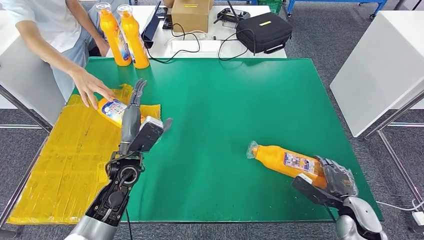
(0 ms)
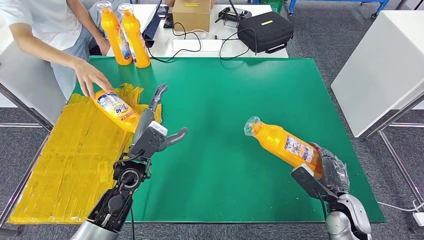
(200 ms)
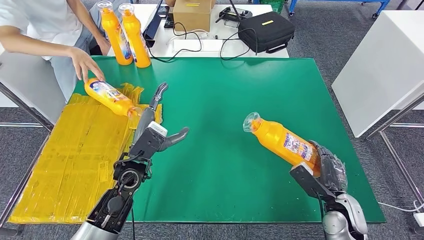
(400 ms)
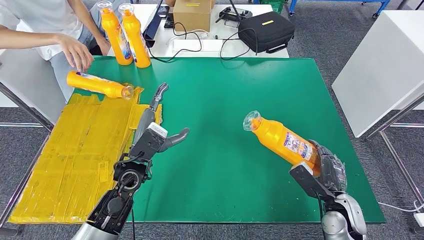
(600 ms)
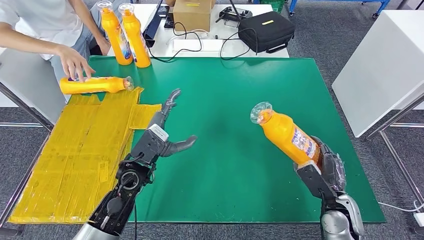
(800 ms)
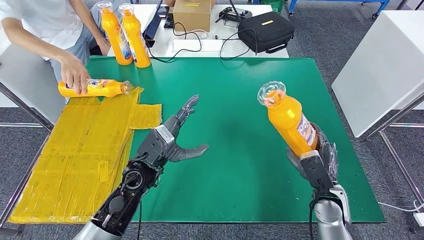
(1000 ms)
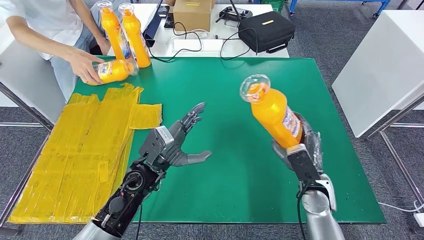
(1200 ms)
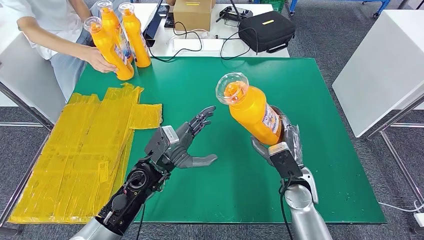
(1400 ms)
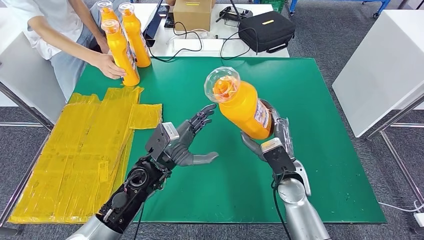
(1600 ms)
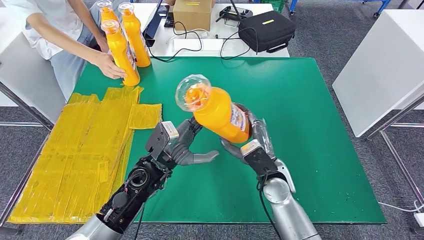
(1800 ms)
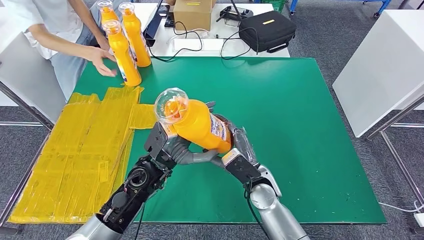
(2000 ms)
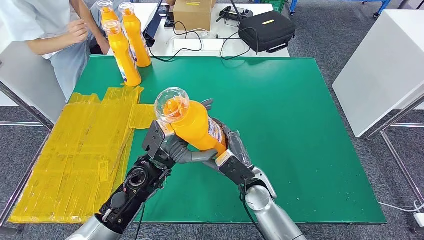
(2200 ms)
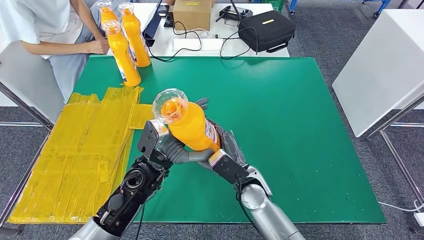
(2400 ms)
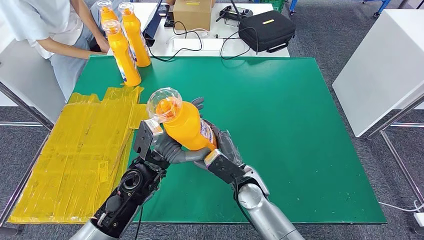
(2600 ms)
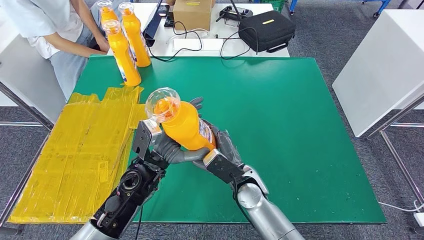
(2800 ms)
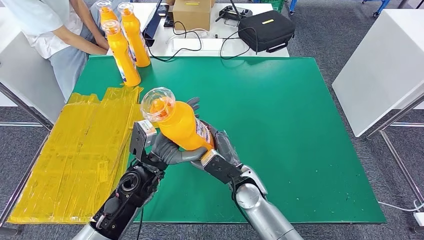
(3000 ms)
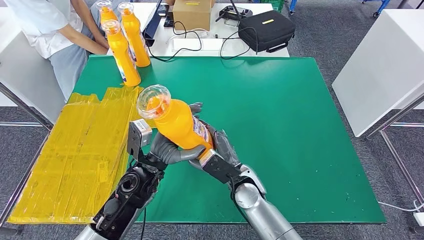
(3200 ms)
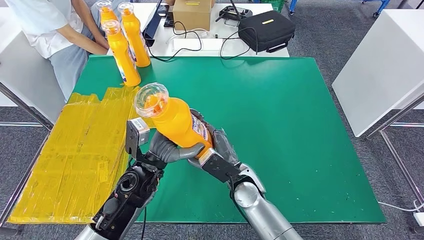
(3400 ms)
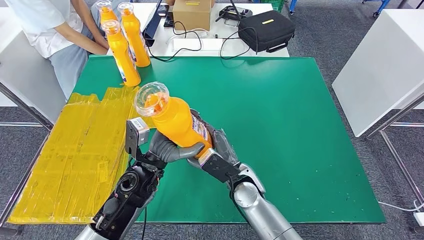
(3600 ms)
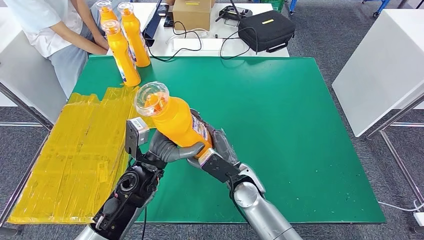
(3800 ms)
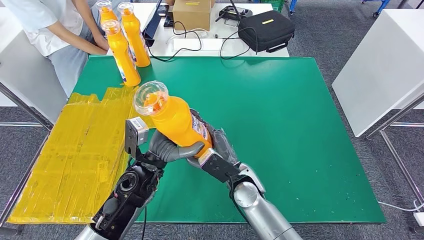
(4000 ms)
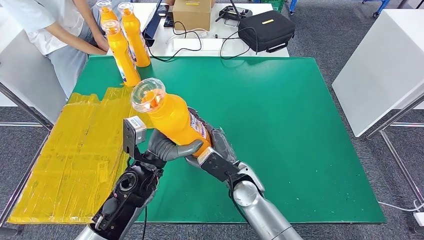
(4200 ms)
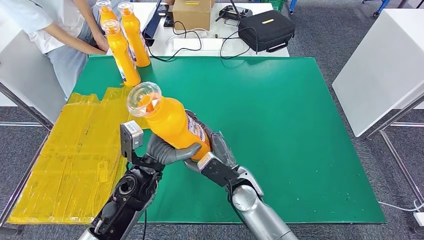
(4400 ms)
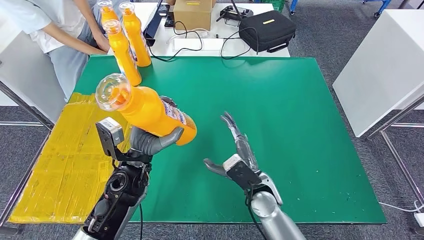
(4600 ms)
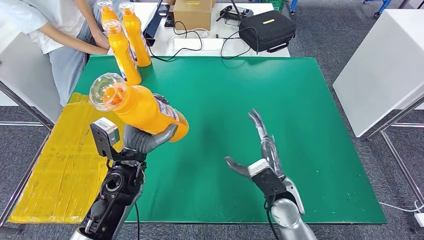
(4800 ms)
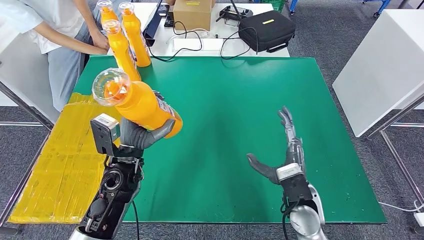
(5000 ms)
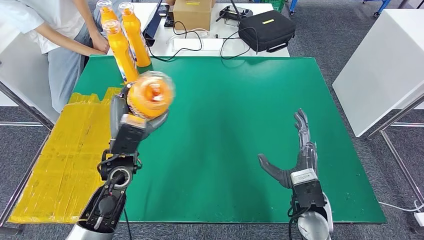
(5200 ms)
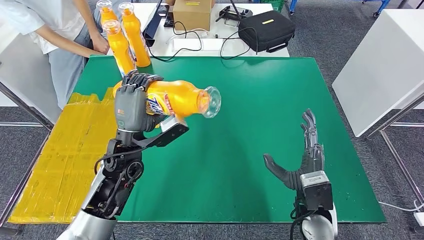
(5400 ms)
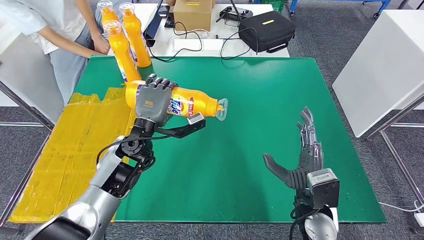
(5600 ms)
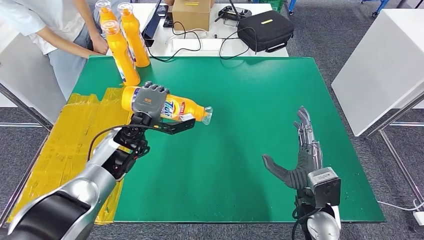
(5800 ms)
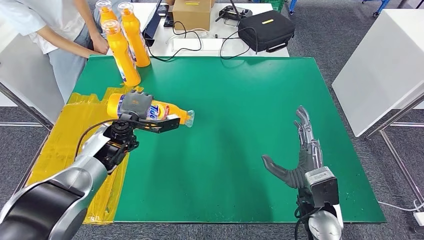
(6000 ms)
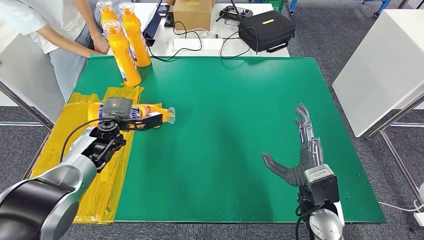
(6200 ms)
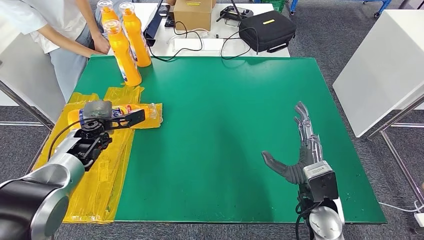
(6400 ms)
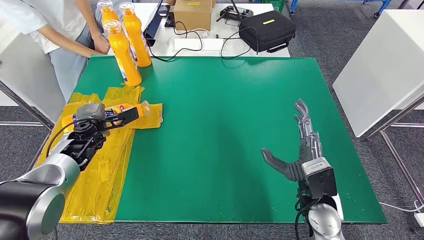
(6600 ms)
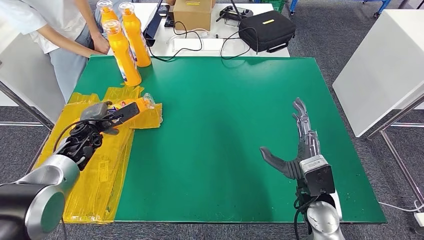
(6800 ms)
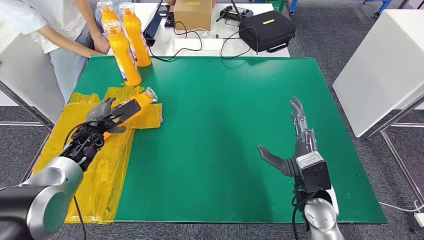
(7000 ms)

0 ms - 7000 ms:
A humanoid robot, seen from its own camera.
Step, 1400 ms - 6800 ms: Flip the bottle to face forward.
1400 ms - 2800 ms: The right hand heads to the left, covering approximately 15 cm.
2800 ms - 4200 ms: There are only small adjustments of the hands.
5600 ms - 7000 ms: The left hand heads to the left, covering roughly 20 cm.

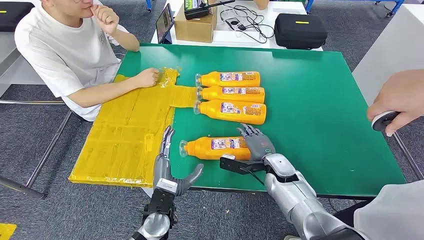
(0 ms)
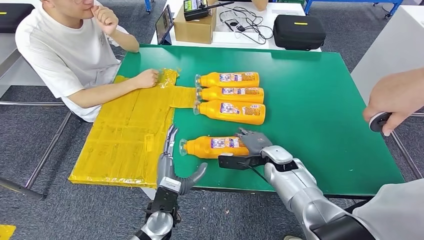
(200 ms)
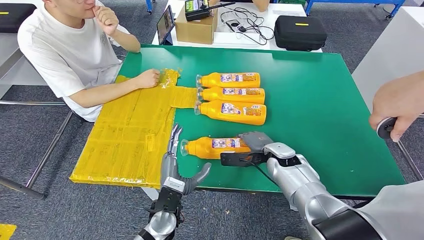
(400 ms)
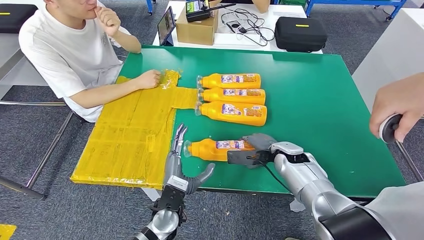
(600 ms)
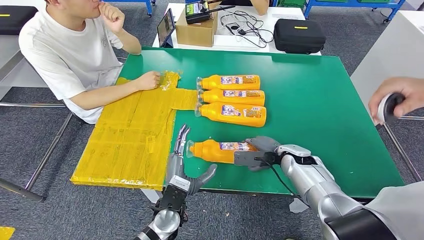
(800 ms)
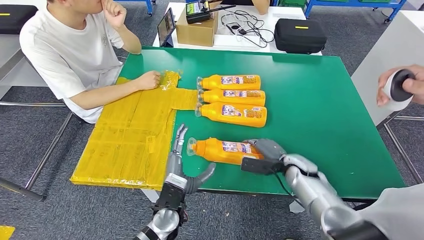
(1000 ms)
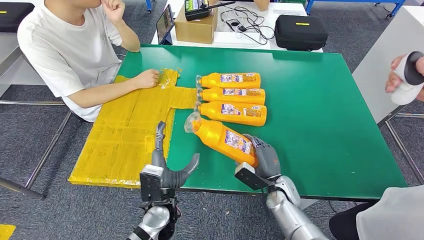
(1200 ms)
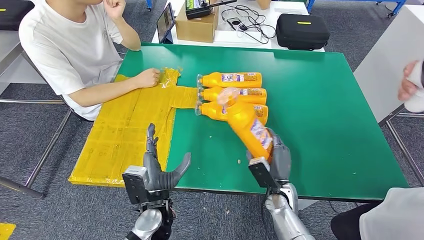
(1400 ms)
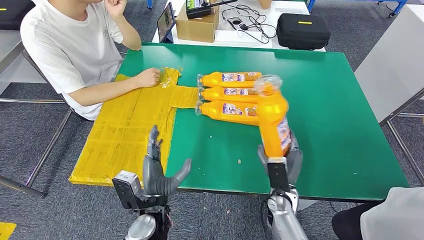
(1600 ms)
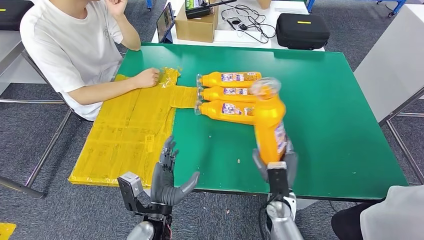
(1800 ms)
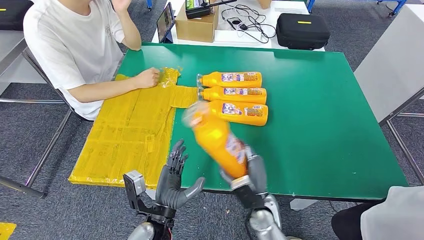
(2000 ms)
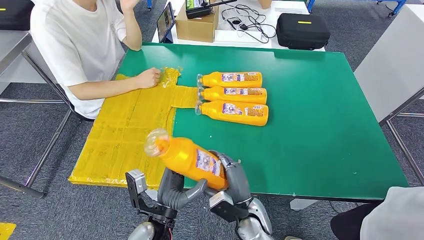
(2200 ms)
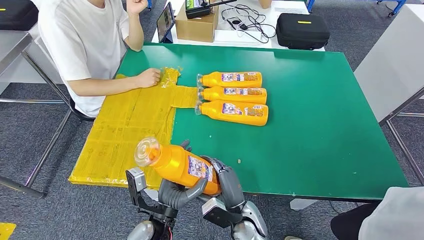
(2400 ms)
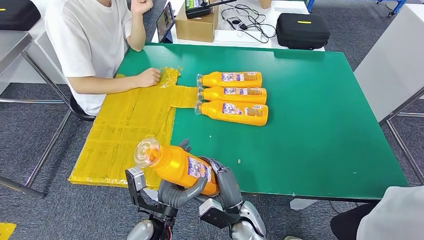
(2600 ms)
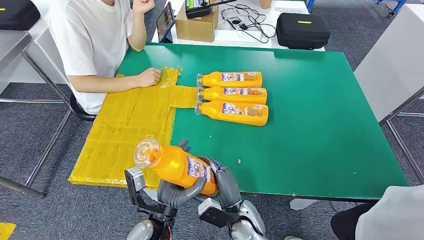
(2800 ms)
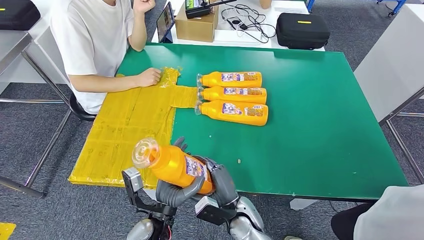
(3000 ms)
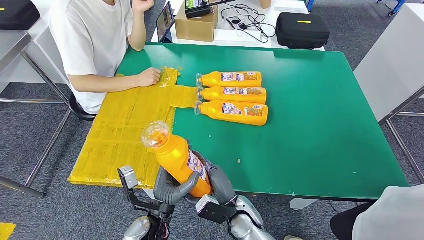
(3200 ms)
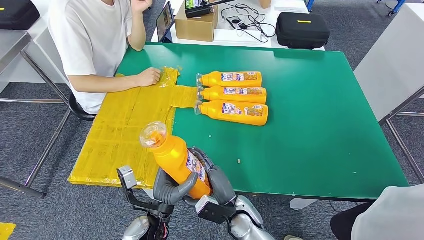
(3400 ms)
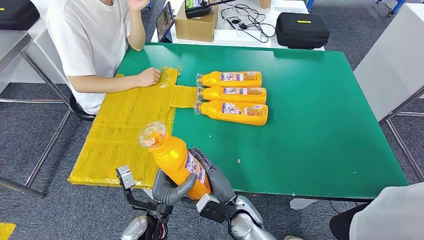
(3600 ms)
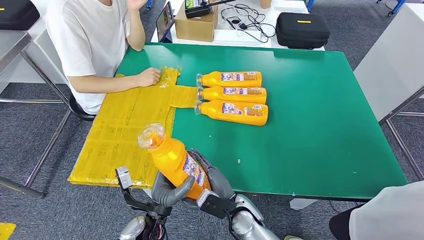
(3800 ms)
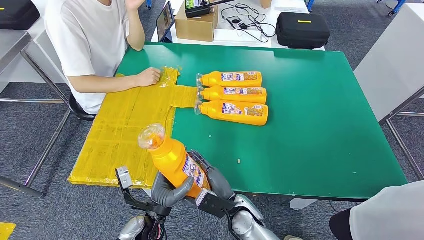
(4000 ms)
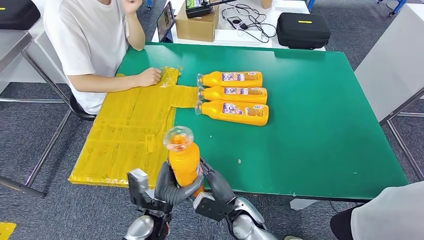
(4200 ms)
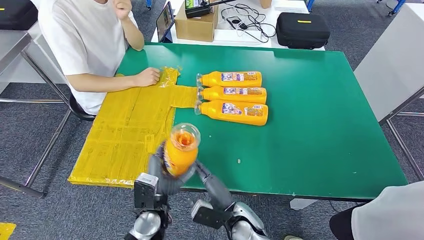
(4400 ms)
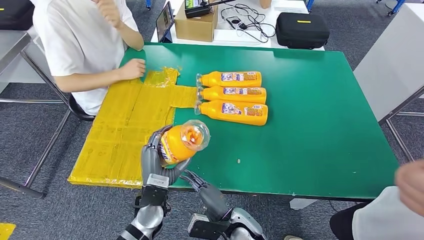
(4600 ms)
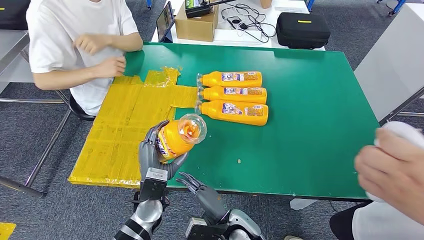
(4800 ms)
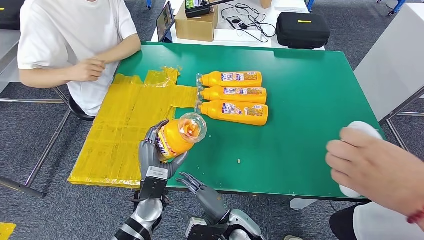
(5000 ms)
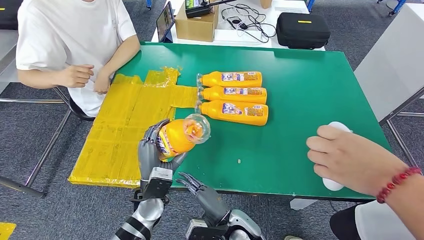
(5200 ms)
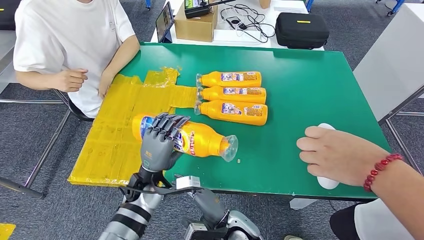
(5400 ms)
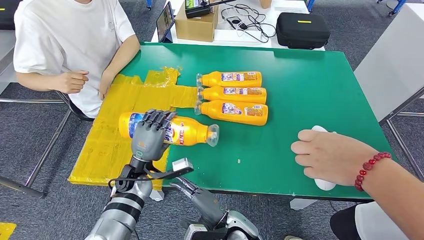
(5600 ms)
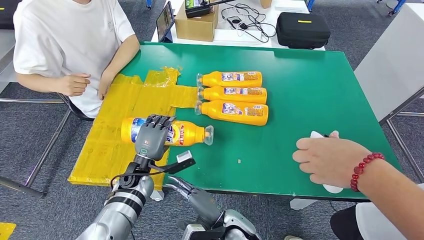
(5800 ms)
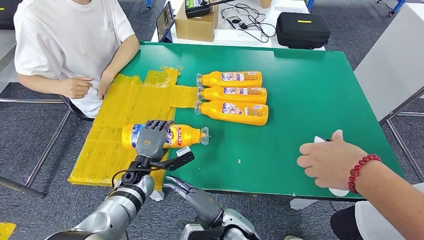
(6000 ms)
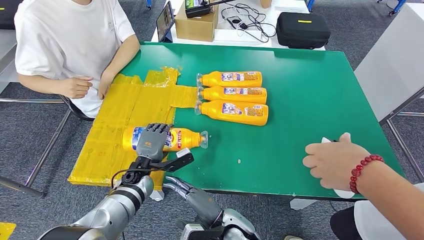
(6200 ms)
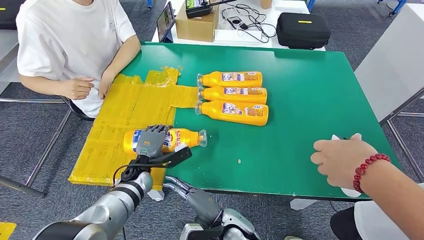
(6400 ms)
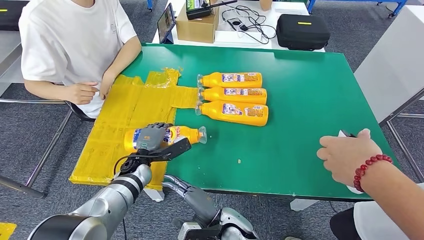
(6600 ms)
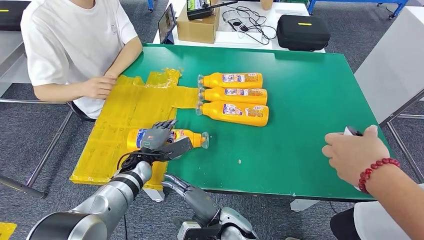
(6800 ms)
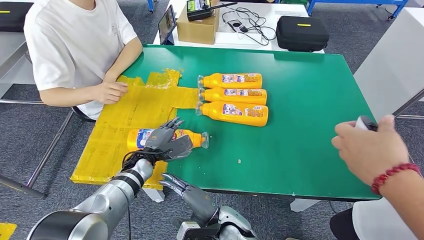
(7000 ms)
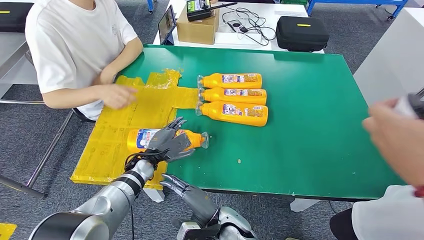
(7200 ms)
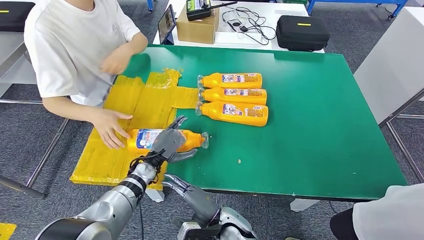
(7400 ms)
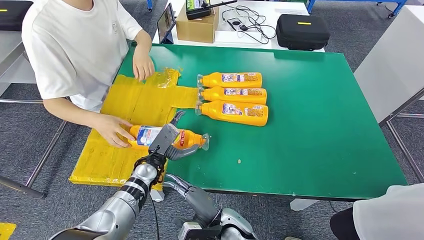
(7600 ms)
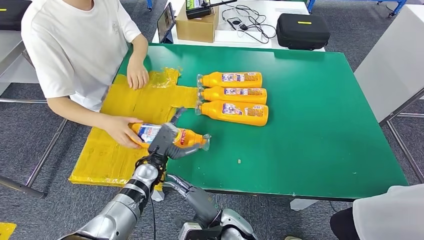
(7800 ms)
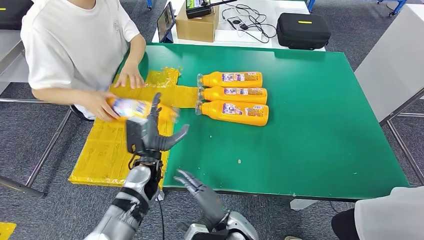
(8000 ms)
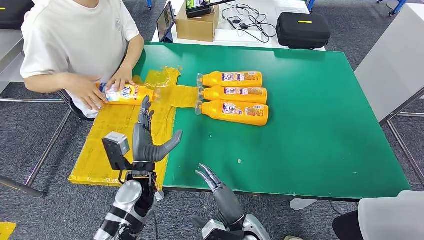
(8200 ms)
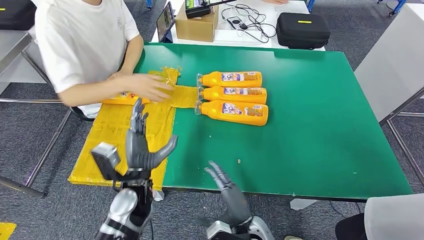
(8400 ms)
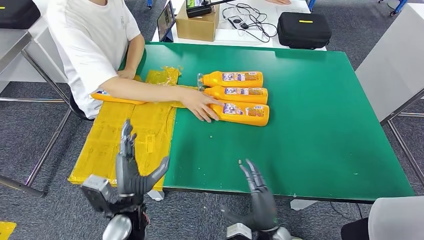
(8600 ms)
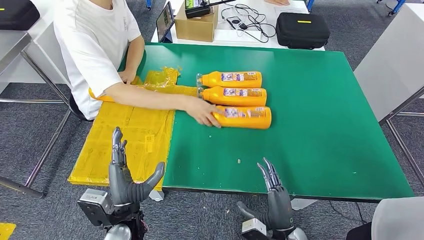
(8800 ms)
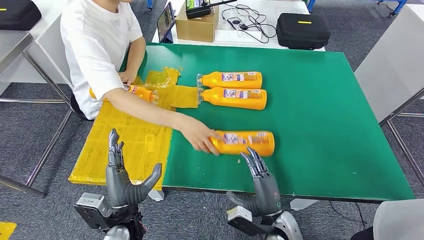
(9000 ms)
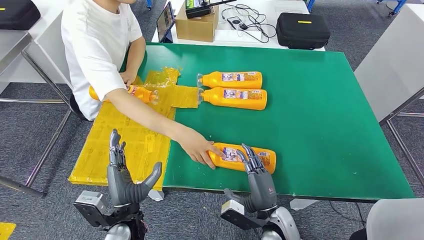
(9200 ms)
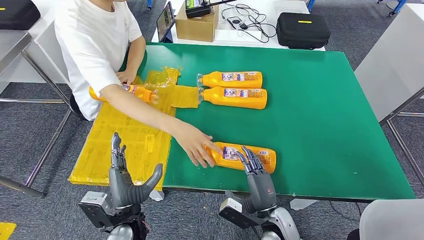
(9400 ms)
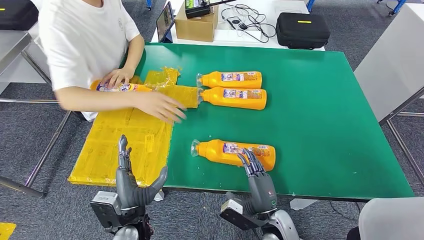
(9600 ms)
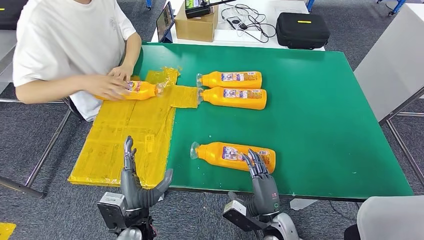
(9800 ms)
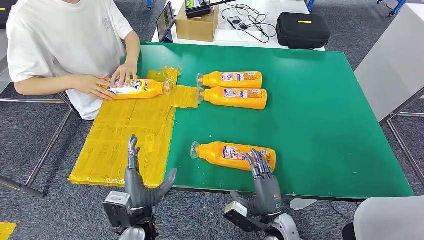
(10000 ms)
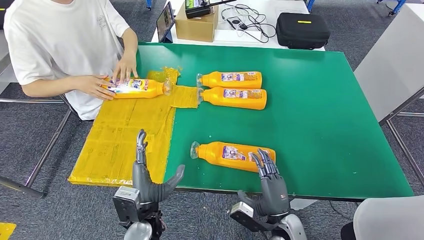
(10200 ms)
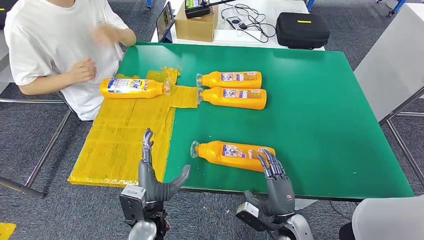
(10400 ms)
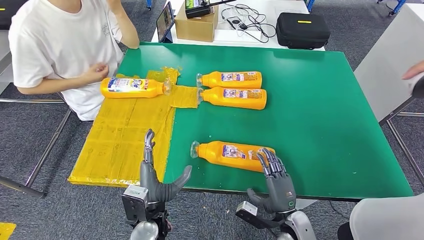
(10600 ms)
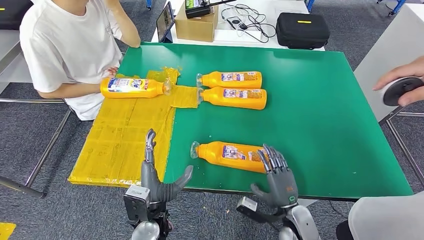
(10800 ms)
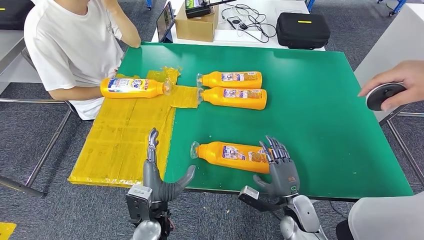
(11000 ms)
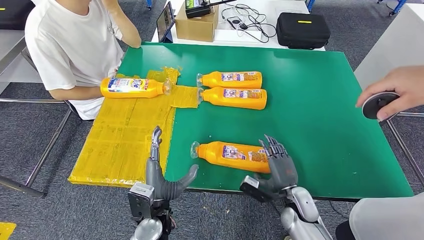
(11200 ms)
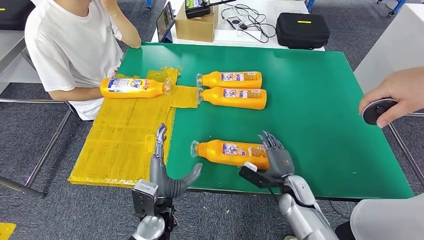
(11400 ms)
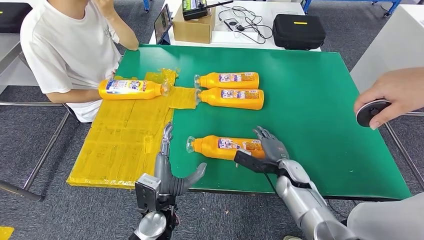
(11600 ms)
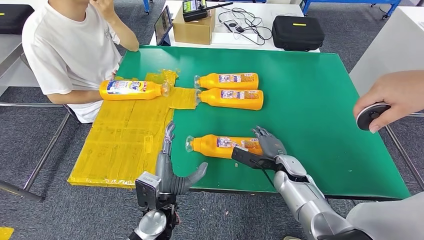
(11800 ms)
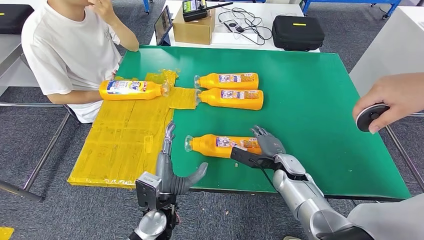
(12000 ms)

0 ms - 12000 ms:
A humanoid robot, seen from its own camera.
Step, 0 ms - 2600 ms: Take the bottle from the table.
Step, 3400 ms - 7400 ms: Flip the bottle to face forward.
